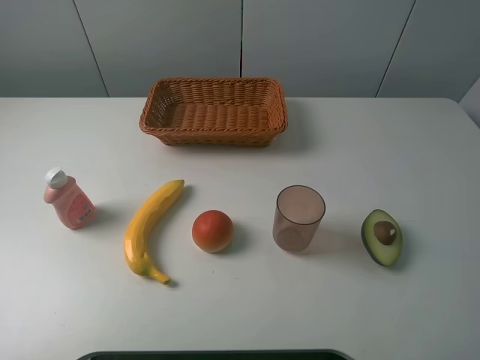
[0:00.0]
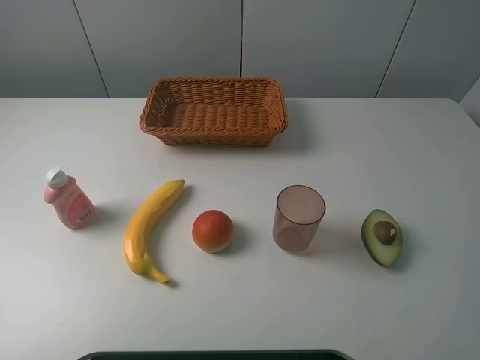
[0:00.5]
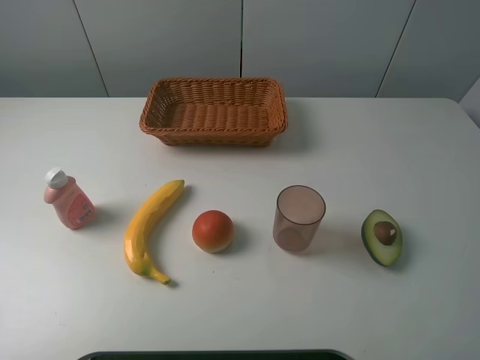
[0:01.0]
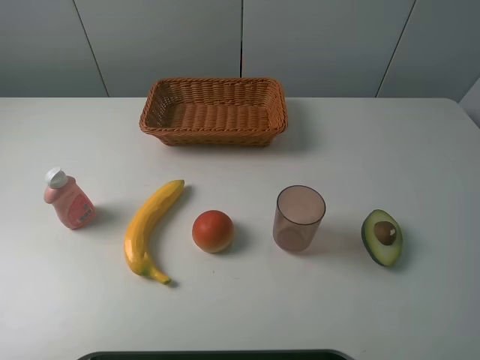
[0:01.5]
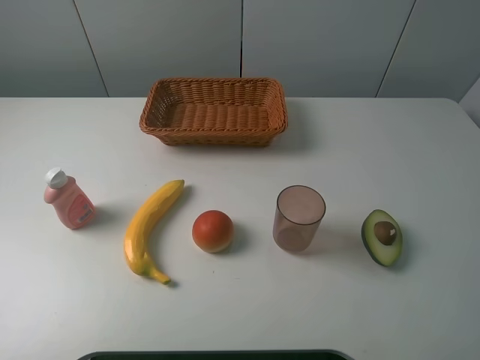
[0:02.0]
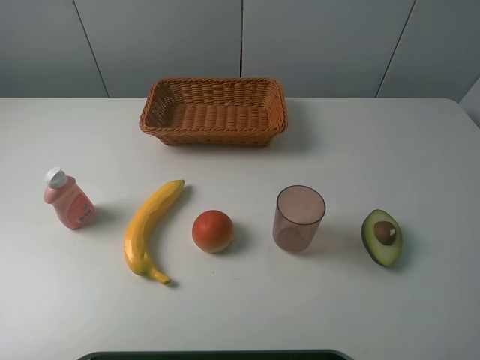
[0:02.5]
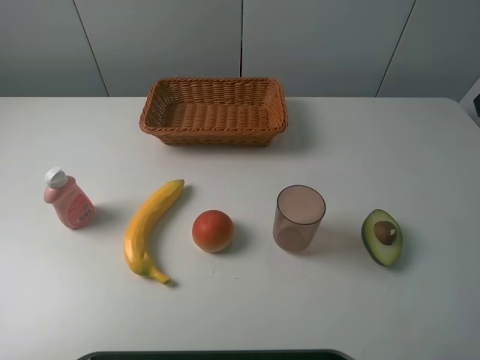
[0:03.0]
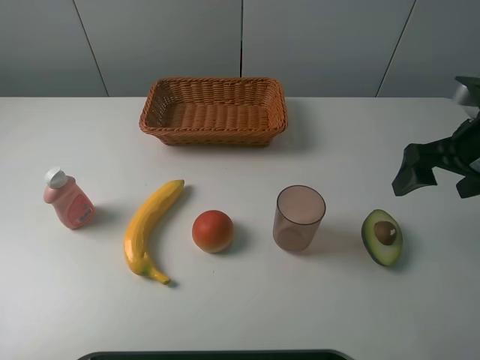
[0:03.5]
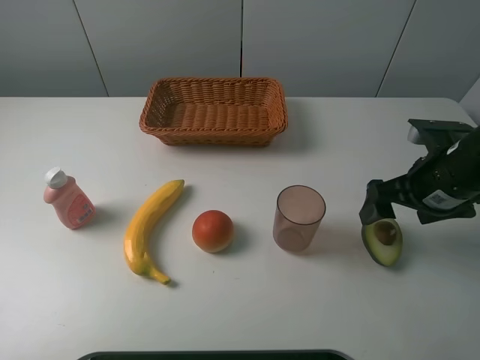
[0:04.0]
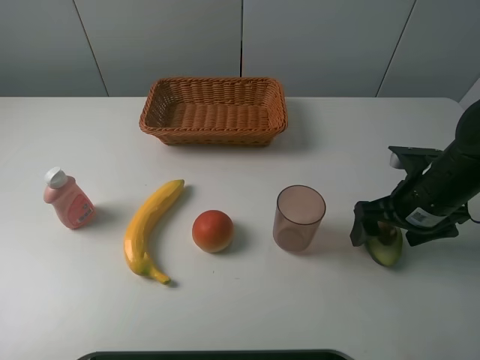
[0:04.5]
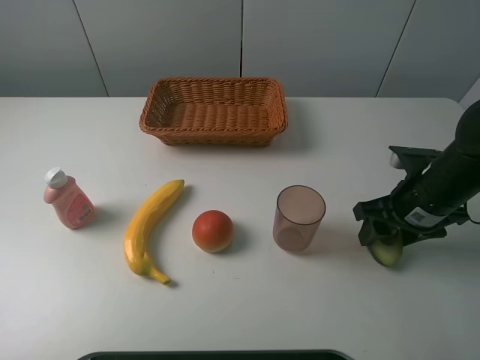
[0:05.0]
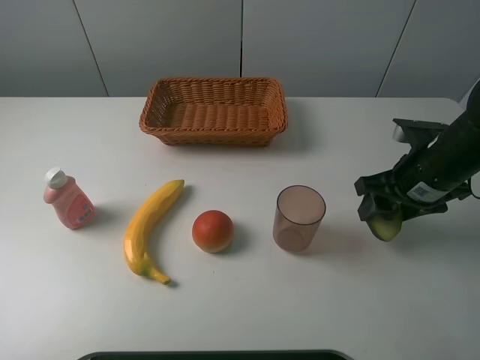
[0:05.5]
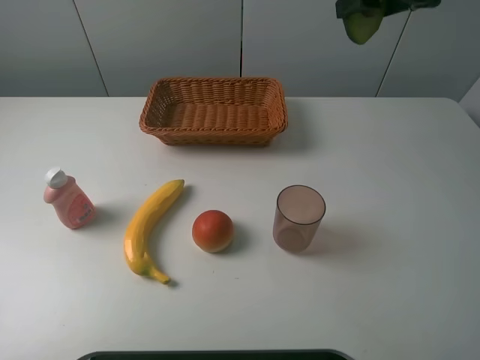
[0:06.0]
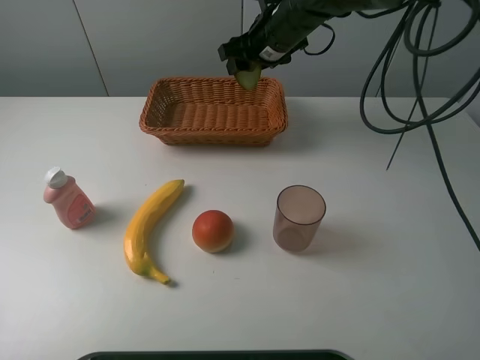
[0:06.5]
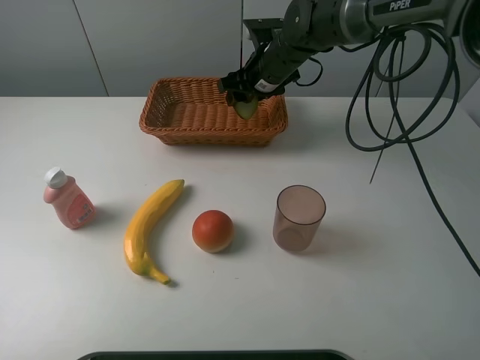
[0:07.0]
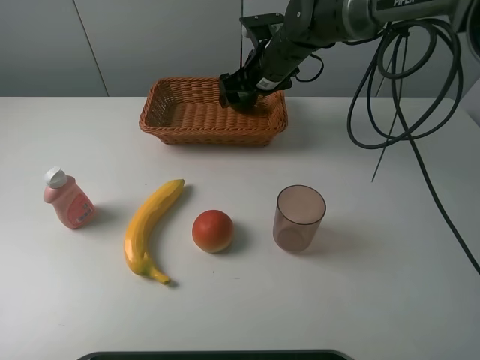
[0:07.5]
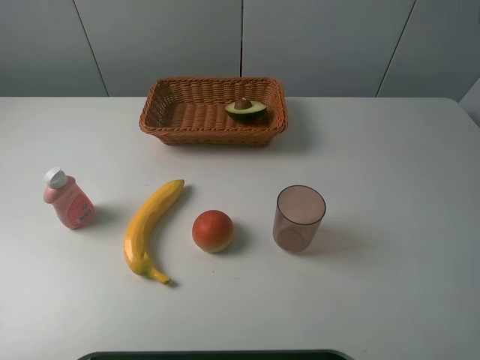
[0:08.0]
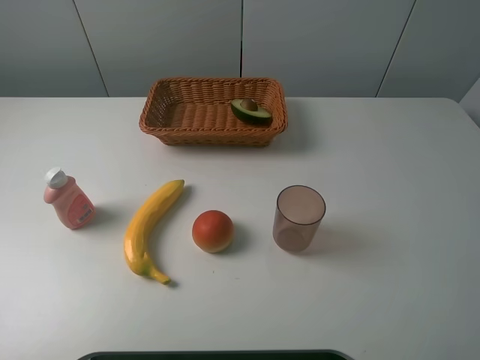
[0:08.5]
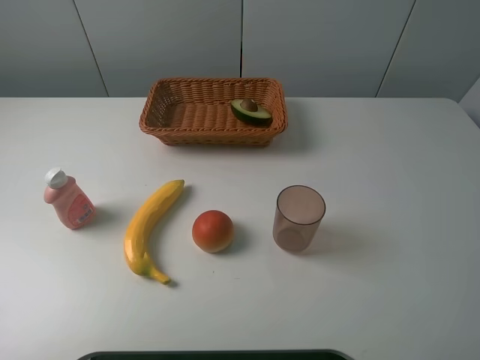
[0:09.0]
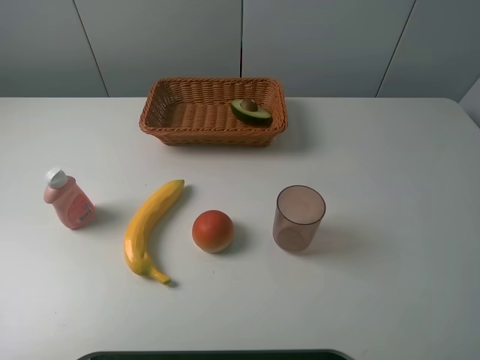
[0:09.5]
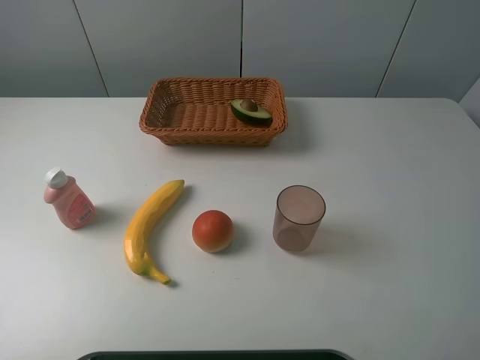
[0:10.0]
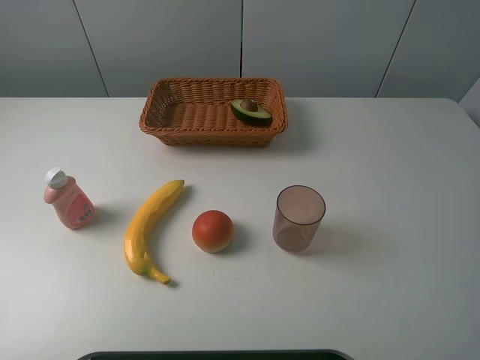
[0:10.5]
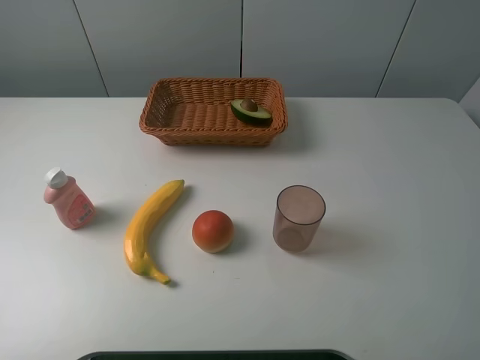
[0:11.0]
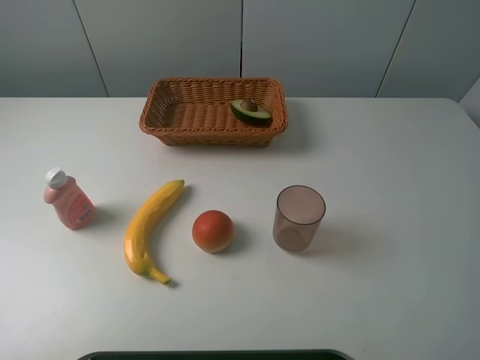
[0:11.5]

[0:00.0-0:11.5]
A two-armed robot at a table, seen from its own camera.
Task of the whole recording: randomly pick up an item from the table and put it in the basket.
Step, 0:00.0 to 0:05.0: Grasp the avocado with the right gripper.
Step, 0:05.5 to 0:07.5: Place the avocado into the basket with the right gripper.
0:00.0 to 0:02.0: Neither gripper changes place.
0:02.0 to 0:04.0: The right gripper shifts roughly 25 cm forward and downward.
0:04.0 to 0:06.0: The right gripper is displaced upward and forward by some 25 cm, and closes.
0:06.0 to 0:07.5: The right gripper travels downward, to the left and forward by roughly 25 cm, and opens up.
0:07.5 to 0:09.5: The right gripper heads backward and to the right, covering about 50 cm.

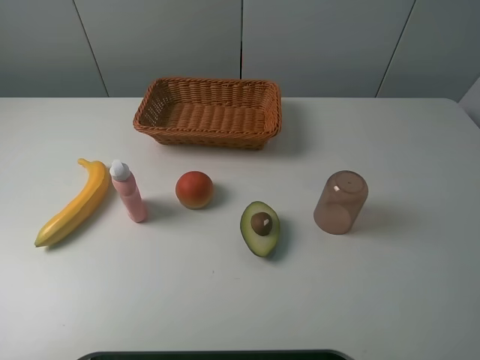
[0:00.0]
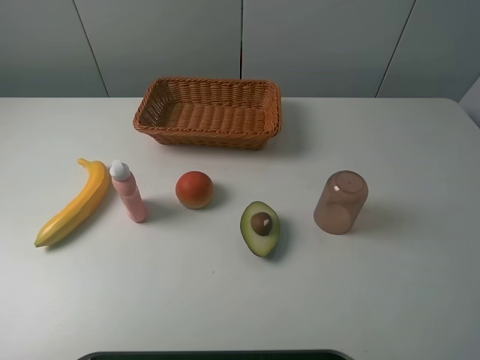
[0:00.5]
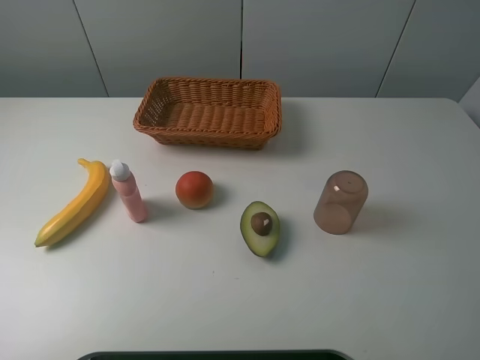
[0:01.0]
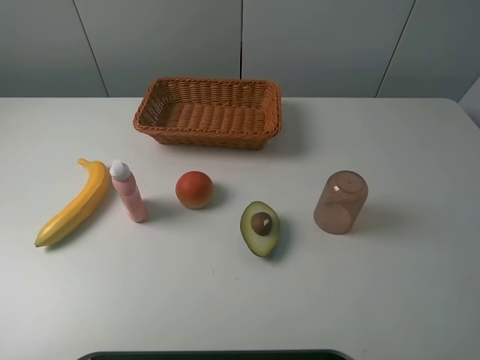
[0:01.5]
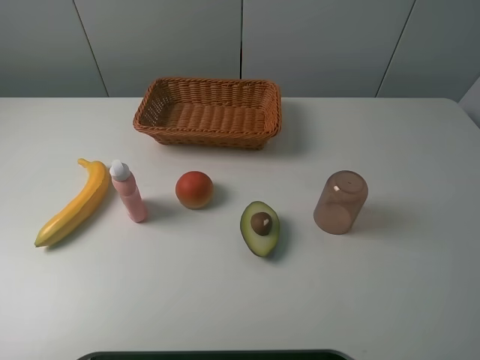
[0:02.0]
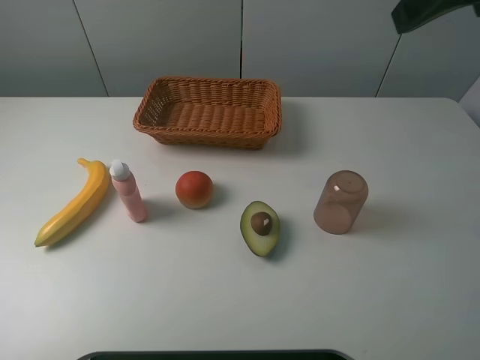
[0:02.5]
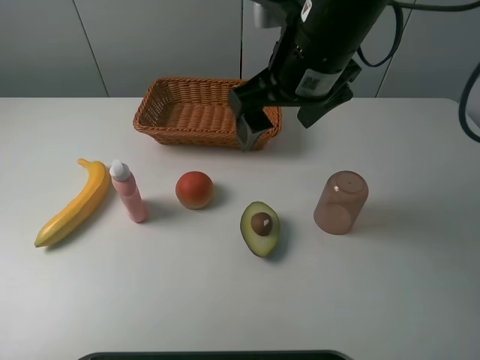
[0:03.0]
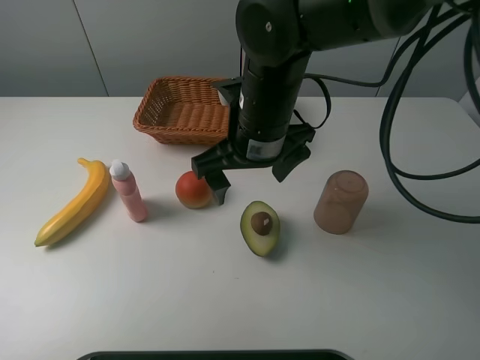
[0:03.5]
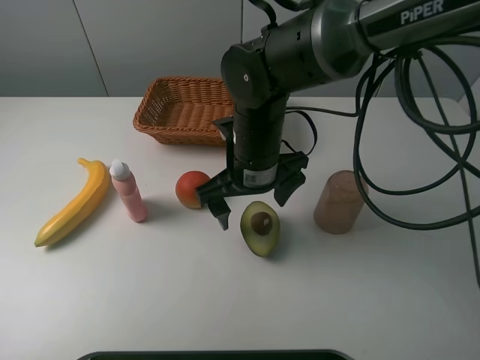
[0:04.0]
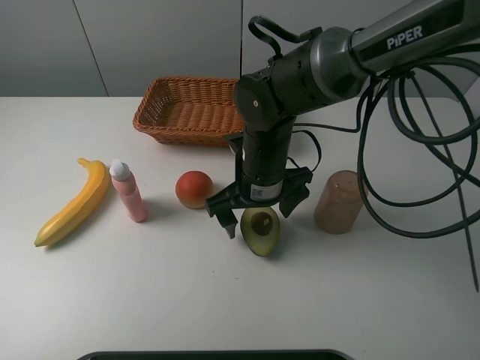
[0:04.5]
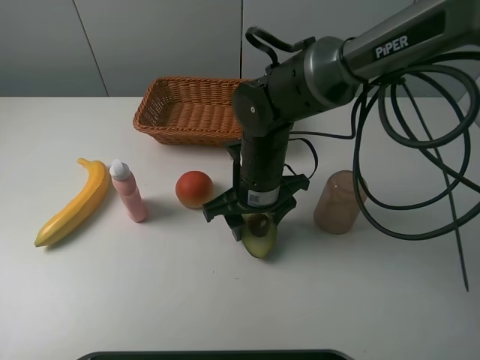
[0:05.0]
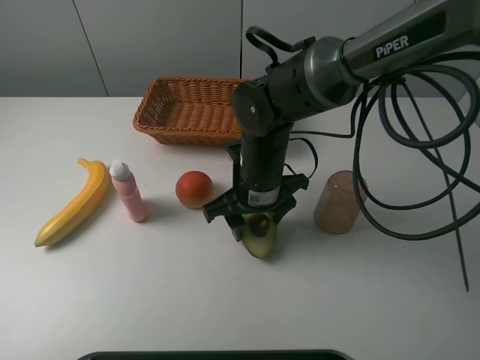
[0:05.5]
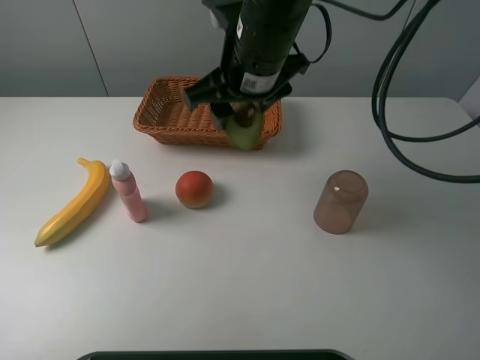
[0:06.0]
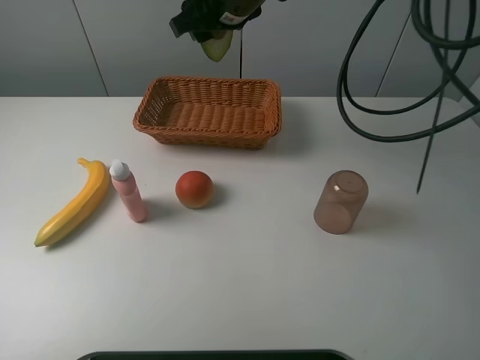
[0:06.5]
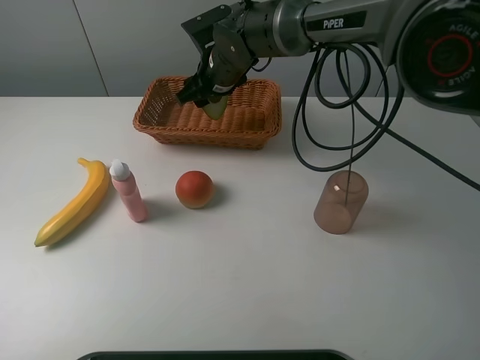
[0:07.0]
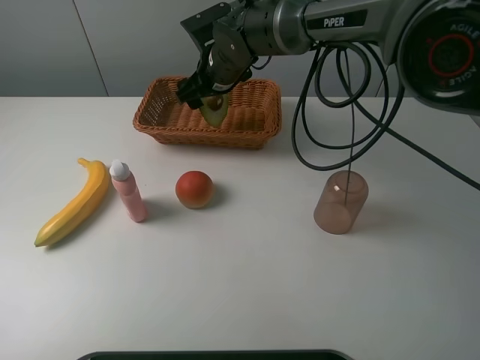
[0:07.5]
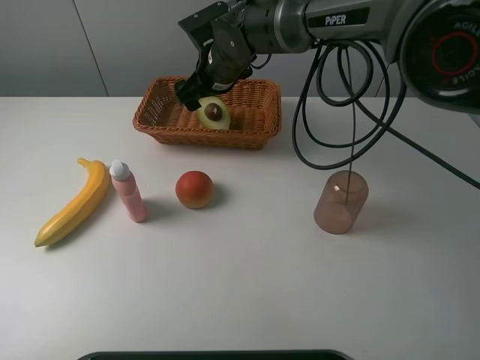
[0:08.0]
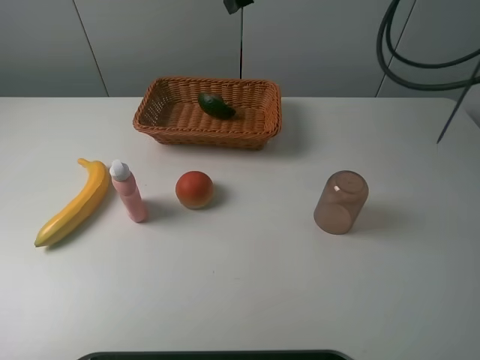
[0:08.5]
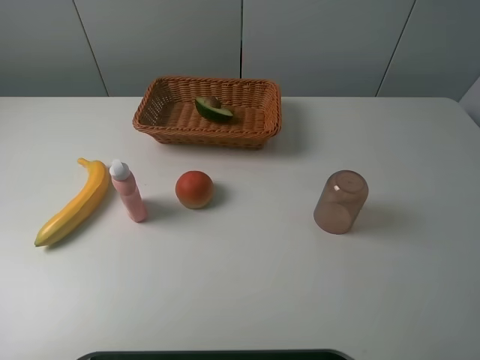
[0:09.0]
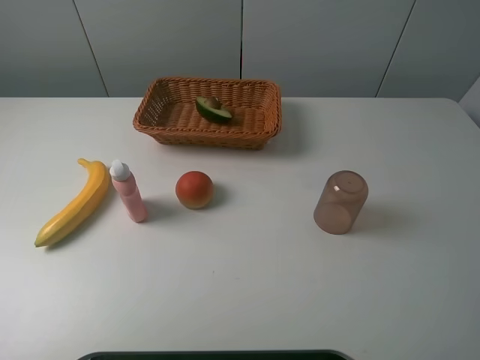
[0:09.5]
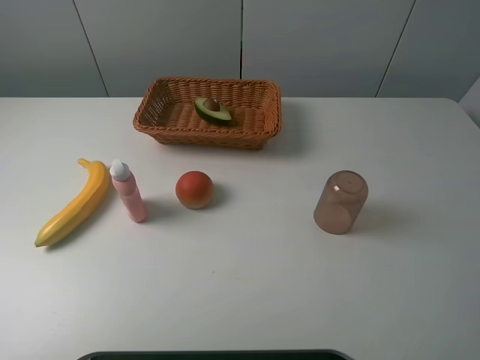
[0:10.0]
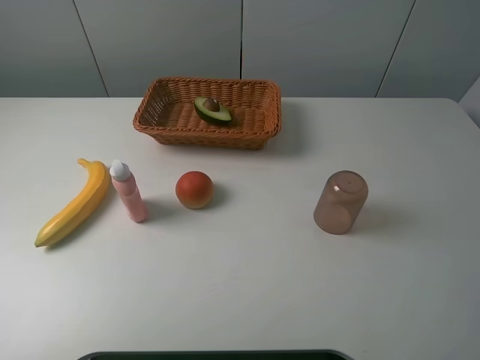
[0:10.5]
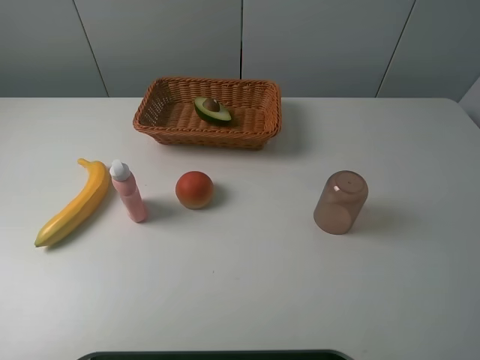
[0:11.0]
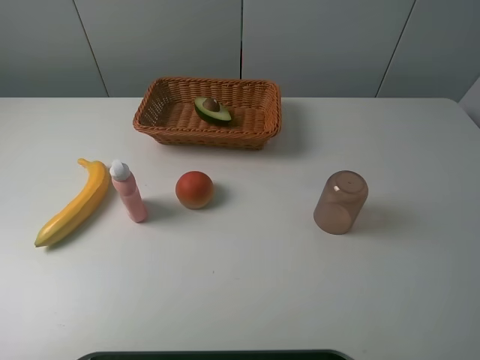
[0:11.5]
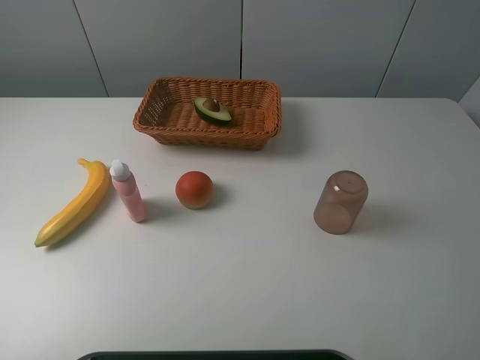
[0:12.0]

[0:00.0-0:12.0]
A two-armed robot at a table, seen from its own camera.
Task of the whole recording: randomly pick up an item from the table and put it in the basket.
Step, 0:00.0 to 0:05.0: Grasp the avocado with the right gripper.
Step, 0:05.5 to 0:07.5: Place the avocado into the basket with the right gripper.
0:02.0 to 0:04.0: The right gripper is displaced to the left, forward and downward by approximately 40 cm.
0:04.0 to 0:06.0: The right gripper shifts some 10 cm upward, and closes.
0:06.0 to 0:08.0: The right gripper travels forward and downward by some 15 cm, and opens.
0:08.0 to 0:10.0: The right gripper moves backward, to the right and upward, some 50 cm.
